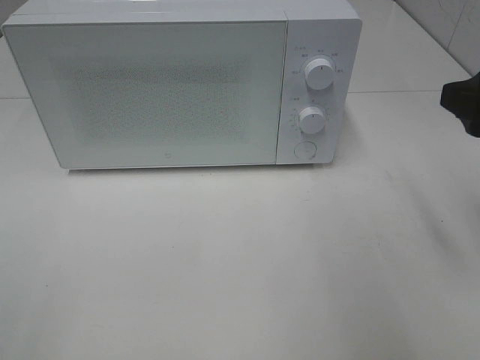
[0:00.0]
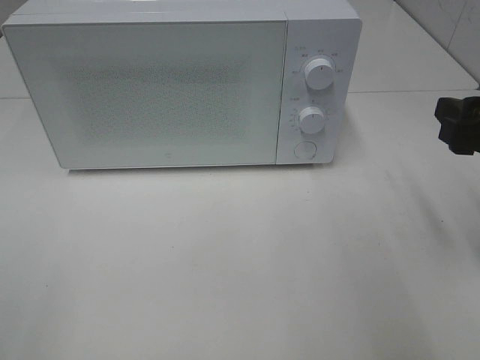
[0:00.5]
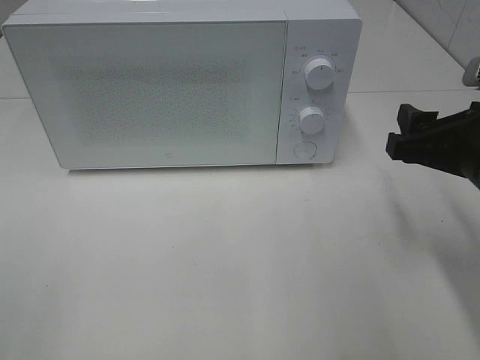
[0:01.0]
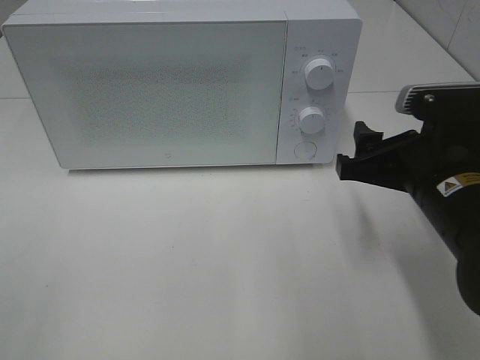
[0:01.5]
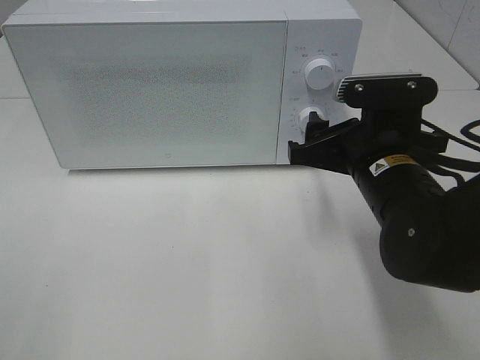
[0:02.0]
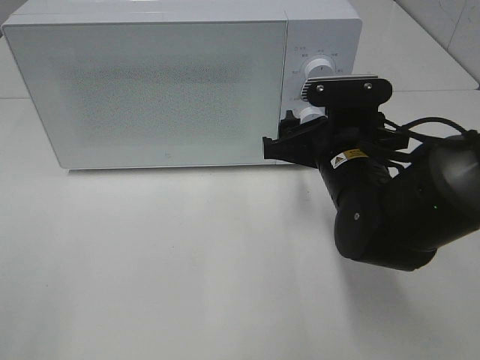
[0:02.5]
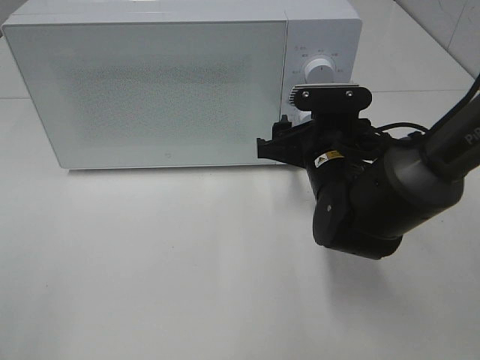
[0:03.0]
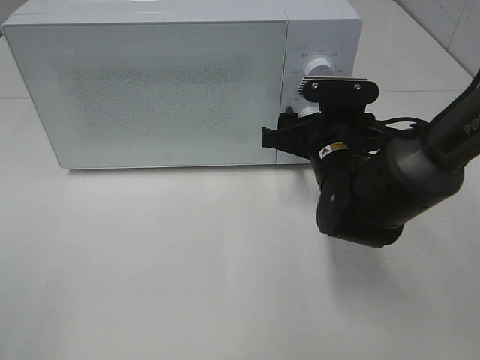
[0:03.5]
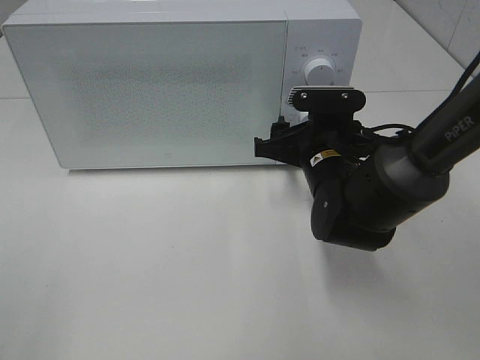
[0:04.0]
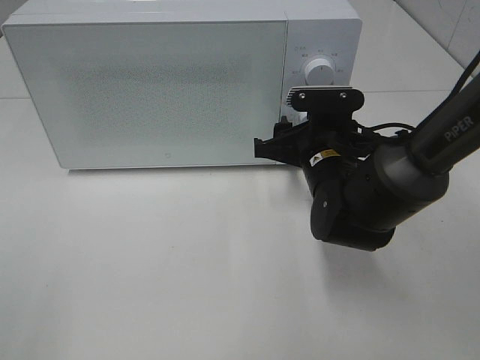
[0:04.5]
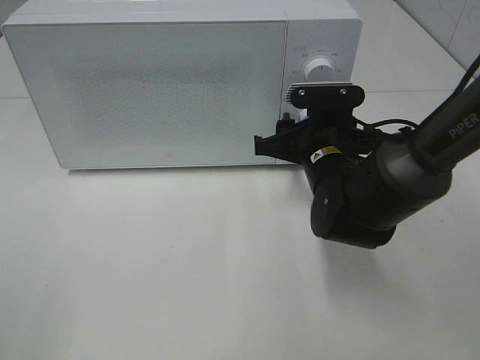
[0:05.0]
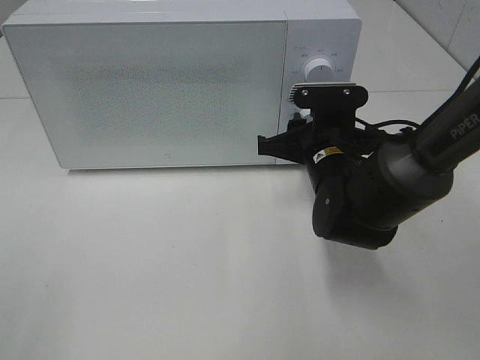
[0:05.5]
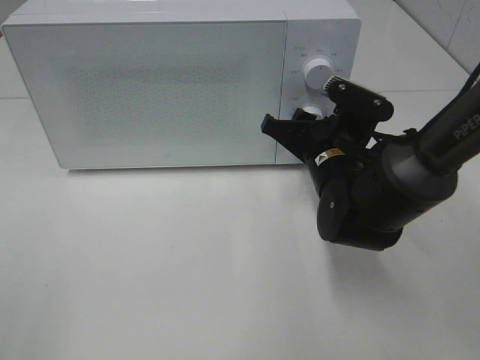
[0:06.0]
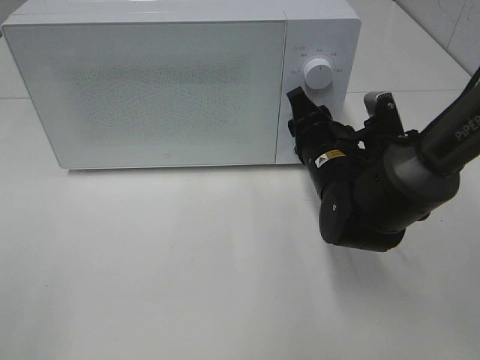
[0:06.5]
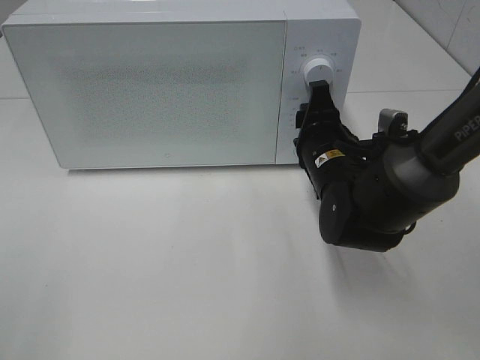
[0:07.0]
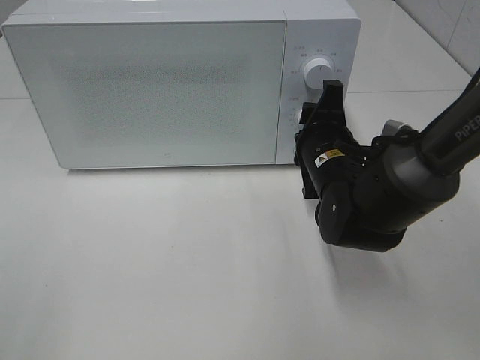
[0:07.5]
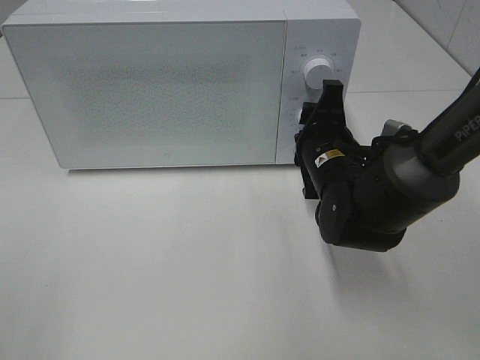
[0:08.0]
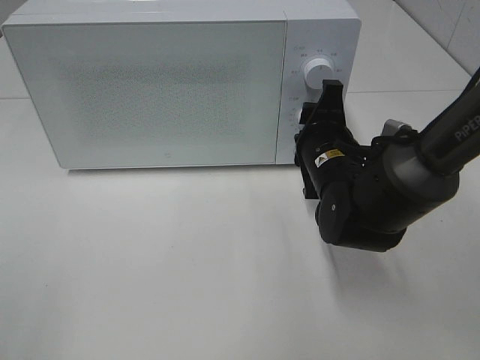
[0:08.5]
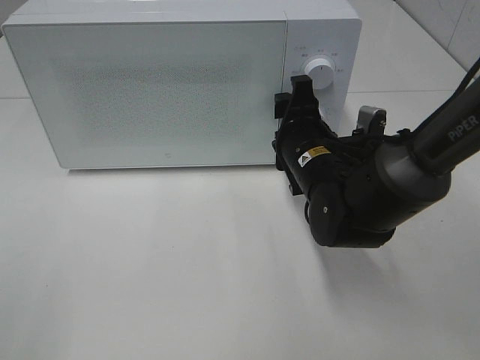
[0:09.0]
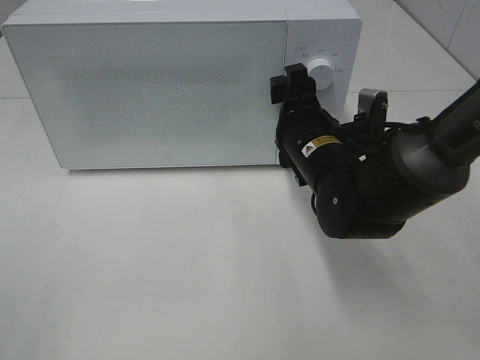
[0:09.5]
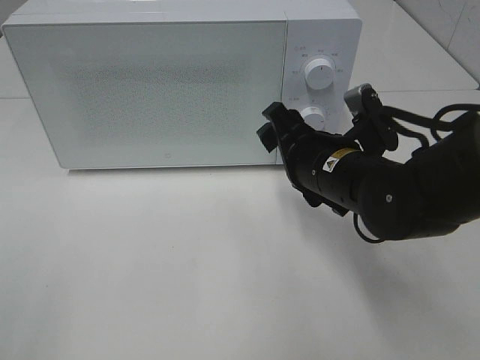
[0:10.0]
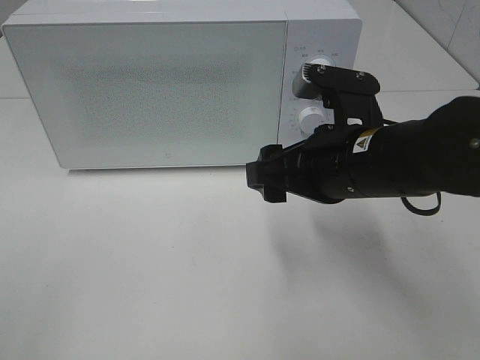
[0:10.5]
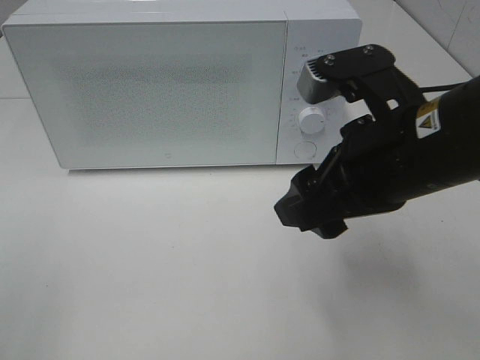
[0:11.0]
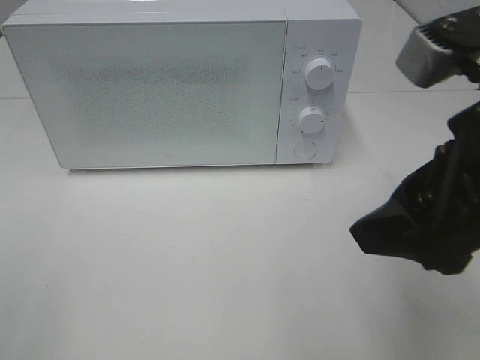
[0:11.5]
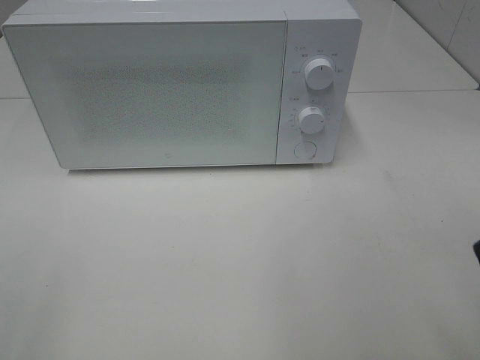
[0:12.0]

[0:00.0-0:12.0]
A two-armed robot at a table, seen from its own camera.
Task of the whole recording: Heat the burger.
Step, 0:00.0 to 0:08.5: Right hand: twist timer button.
0:00.0 to 0:02.0: The right gripper goes some 15 cm to the left, downward and forward.
0:02.0 to 0:04.0: The right gripper moves forward and downward, approximately 10 cm.
0:08.0 to 0:10.0: The right gripper shifts by about 5 cm.
0:10.0 to 0:12.0: The right gripper heads backward, upward and to the right, covering approximately 30 cm.

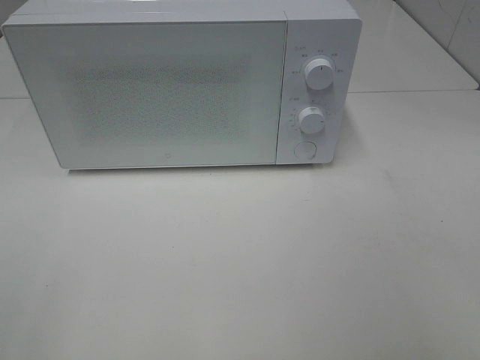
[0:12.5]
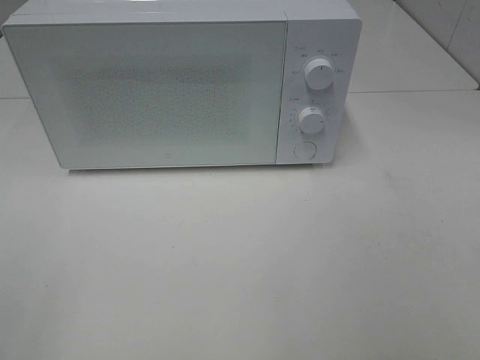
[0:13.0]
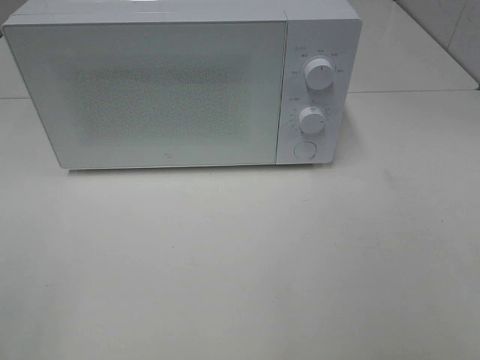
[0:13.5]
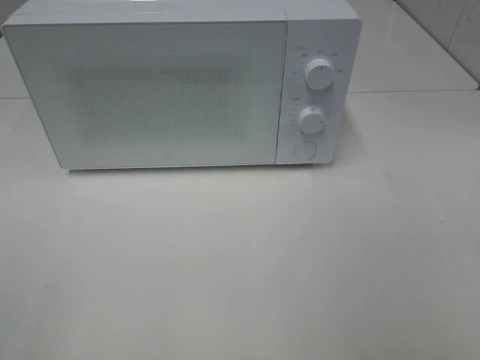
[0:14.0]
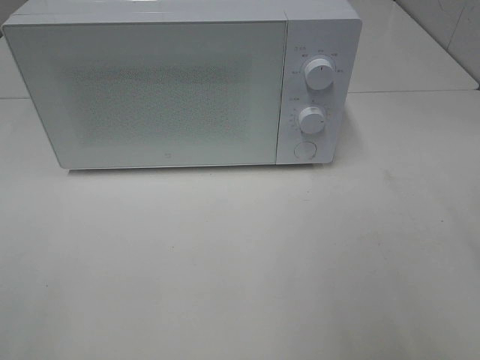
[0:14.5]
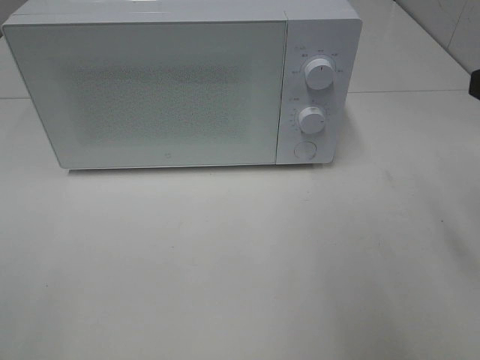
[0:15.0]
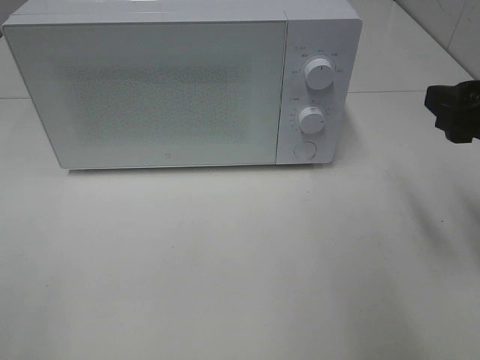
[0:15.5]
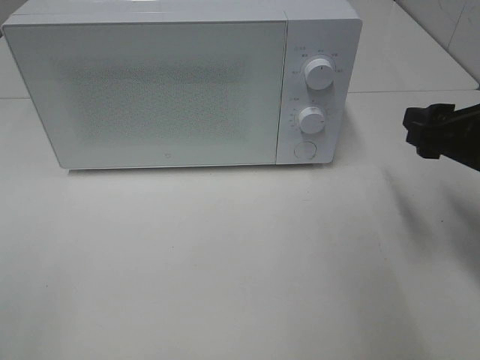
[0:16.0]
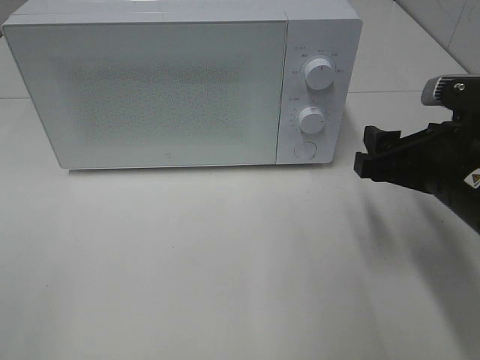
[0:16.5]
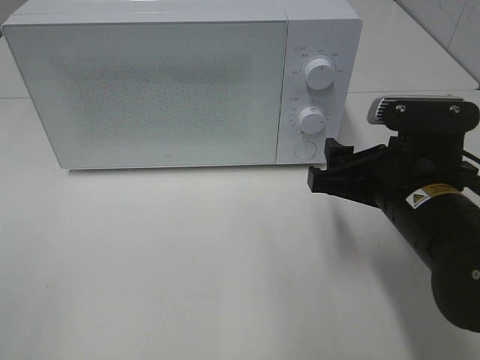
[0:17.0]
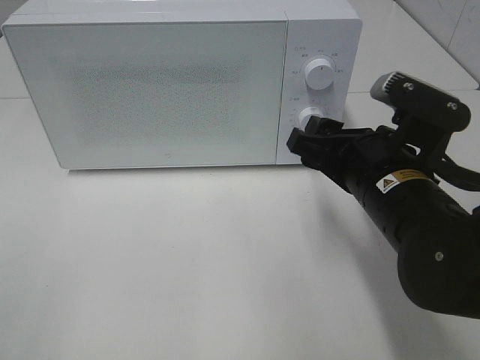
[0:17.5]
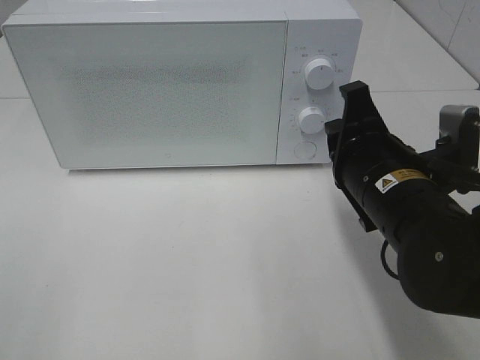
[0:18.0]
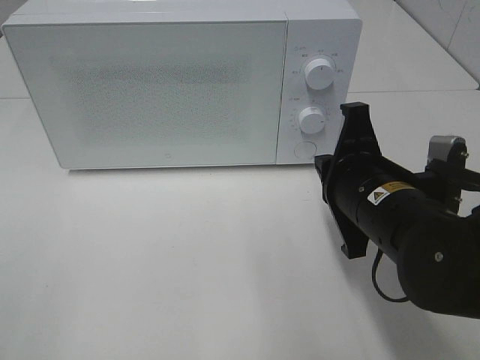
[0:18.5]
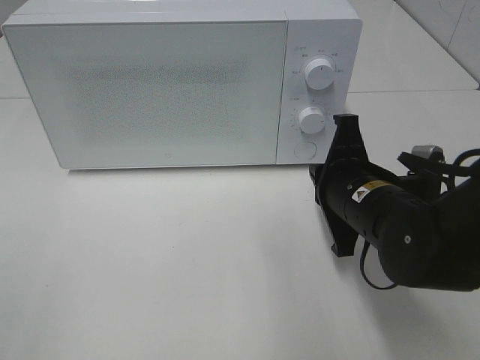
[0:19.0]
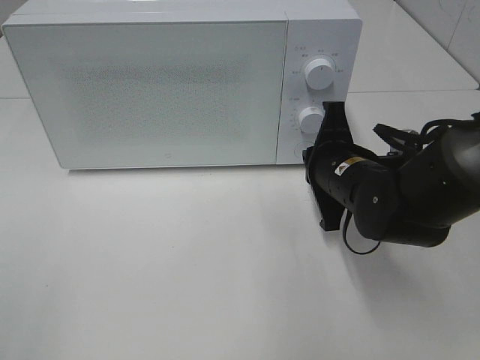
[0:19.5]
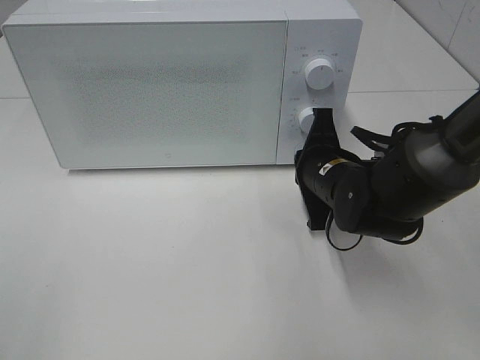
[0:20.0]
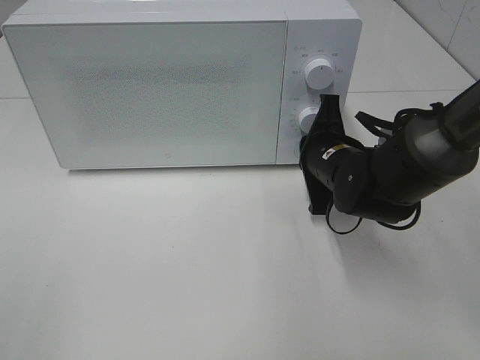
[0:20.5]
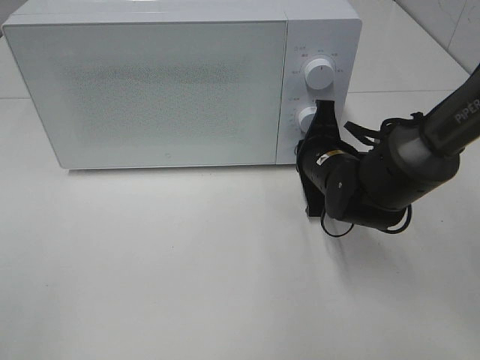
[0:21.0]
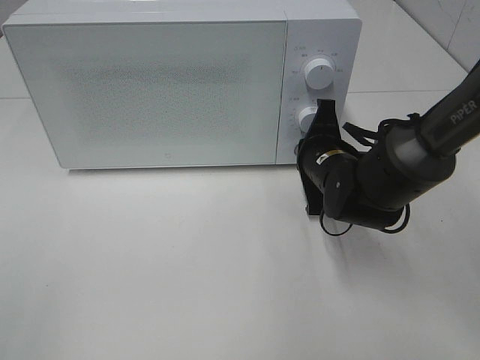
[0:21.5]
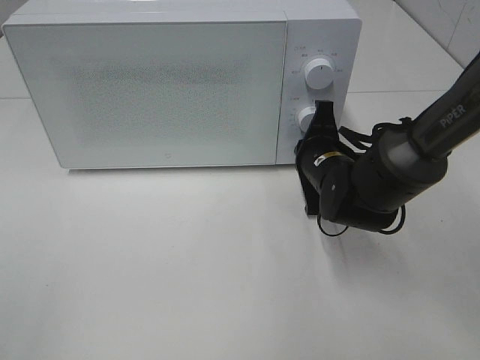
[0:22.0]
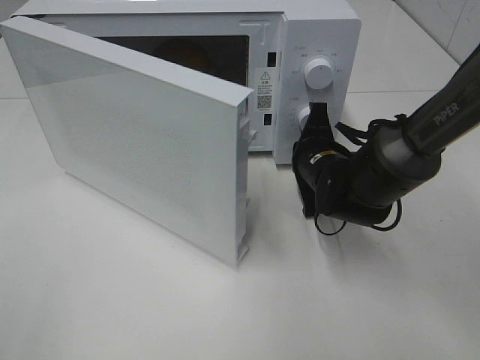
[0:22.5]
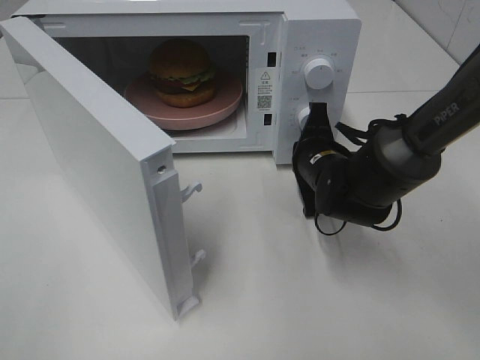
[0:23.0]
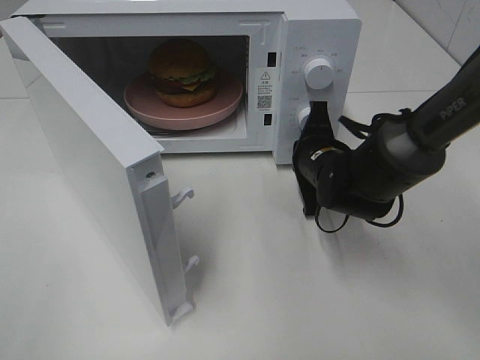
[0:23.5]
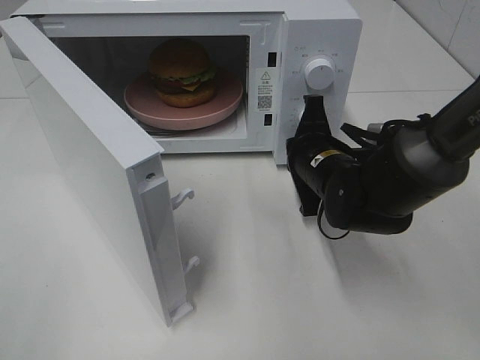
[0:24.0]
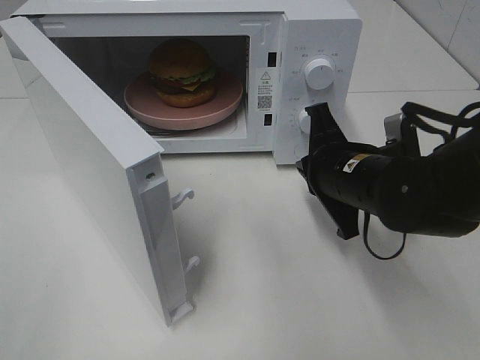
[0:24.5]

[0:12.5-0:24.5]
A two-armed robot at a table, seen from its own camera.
Task of the whole recording: Heat the burger.
Step, 0:12.5 to 0:23.5: Right hand: press the switch.
0:14.5 to 0:16.5: The right gripper heads downward, forward and to the left, covering approximately 20 cm.
0:16.5 to 0:18.5: The right gripper is displaced to the left by approximately 5 cm, and closes.
0:18.5 to 0:20.5: The right gripper travels forward and downward by approximately 15 cm.
0:22.5 to 0:24.5: The right gripper travels backward and upward by approximately 10 cm.

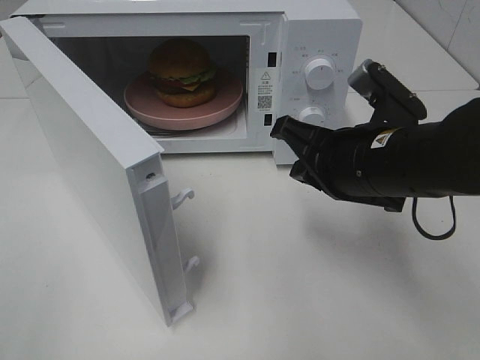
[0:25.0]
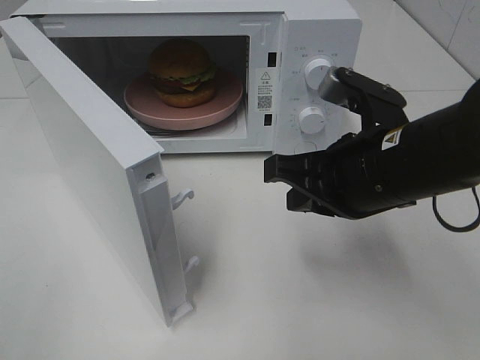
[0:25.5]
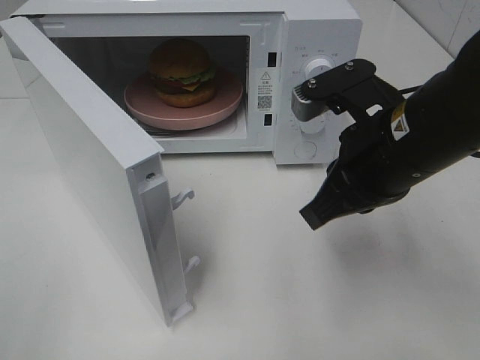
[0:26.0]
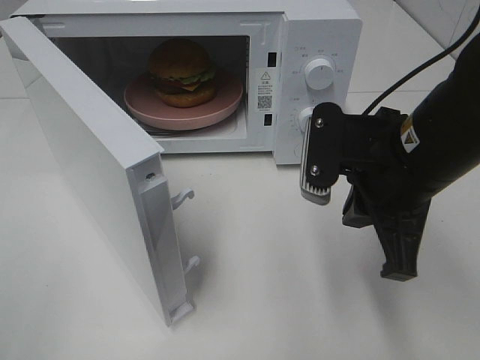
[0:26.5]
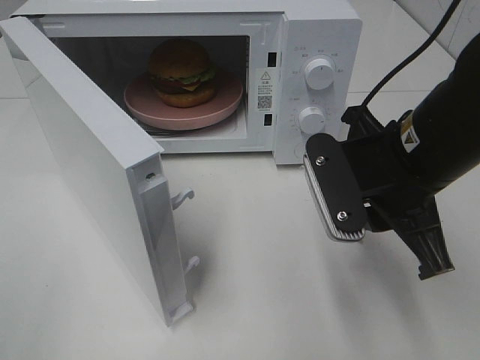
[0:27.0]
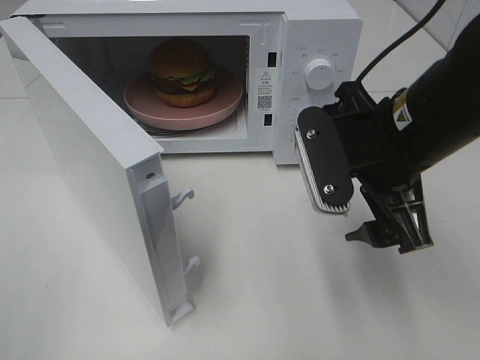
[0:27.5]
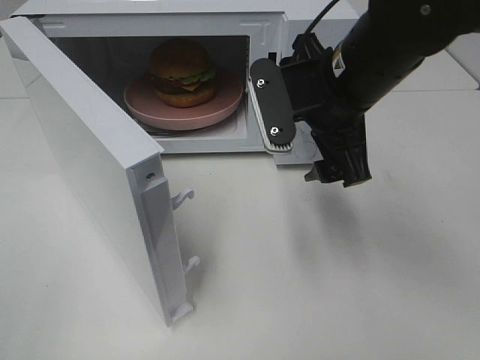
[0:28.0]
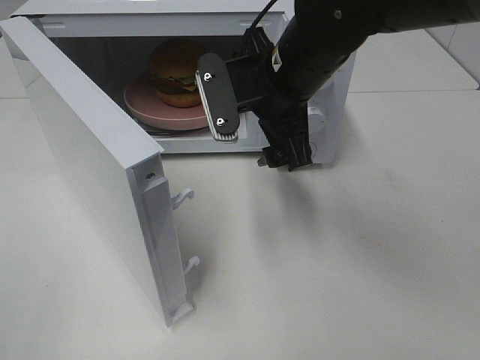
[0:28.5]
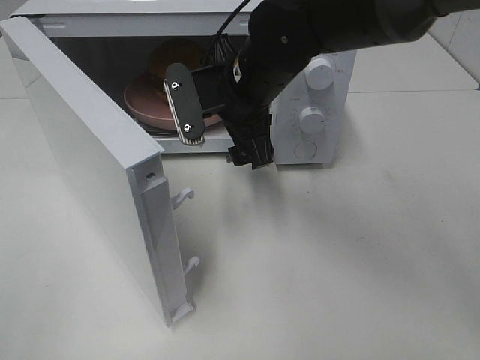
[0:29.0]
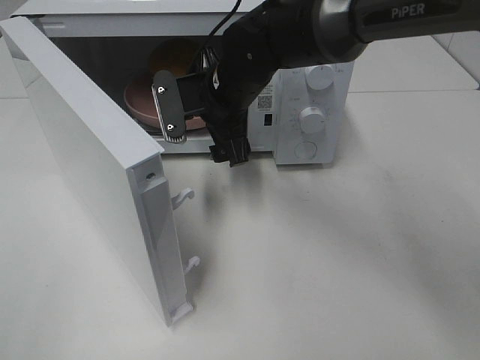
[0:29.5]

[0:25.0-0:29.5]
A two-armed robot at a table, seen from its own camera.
Task of the whole recording: Heat the burger.
0:27.0 to 0:29.5: The right gripper goes approximately 20 cm forward and to the left, and opens its fingers.
